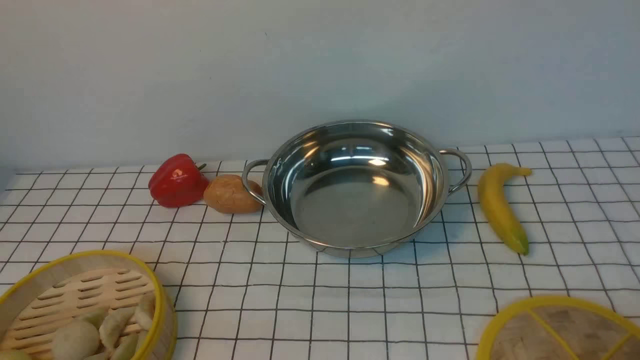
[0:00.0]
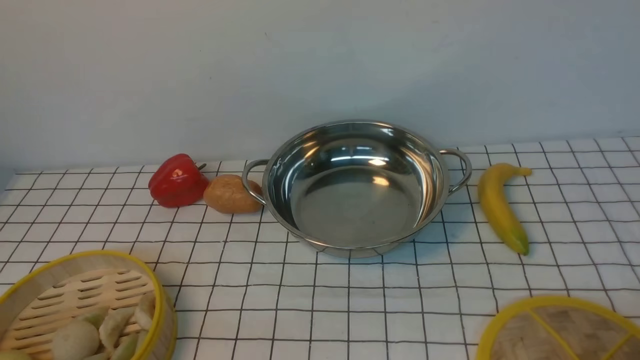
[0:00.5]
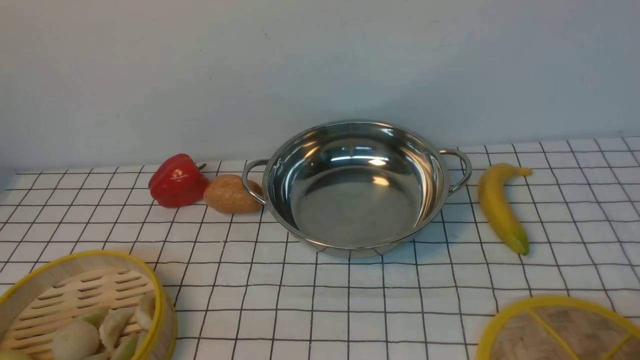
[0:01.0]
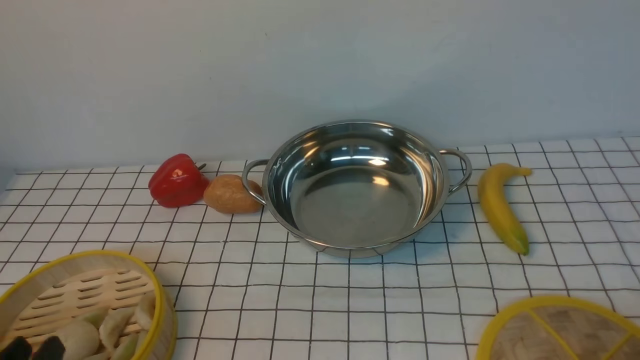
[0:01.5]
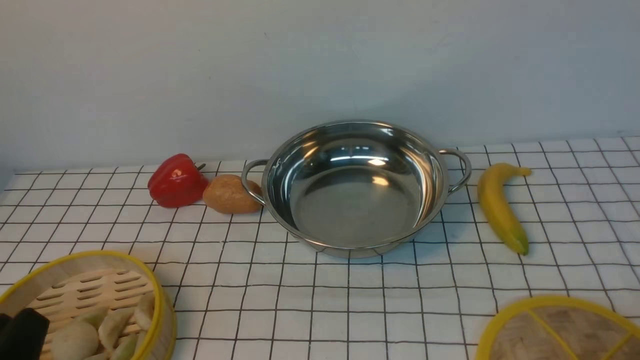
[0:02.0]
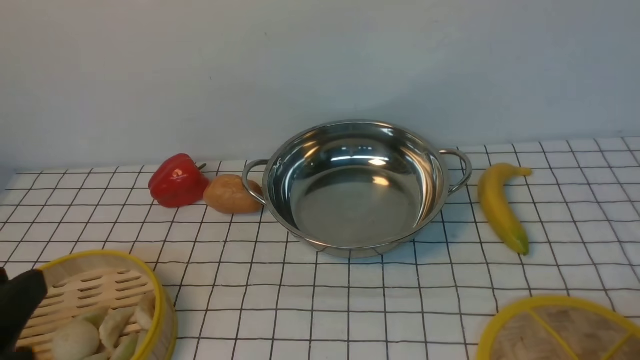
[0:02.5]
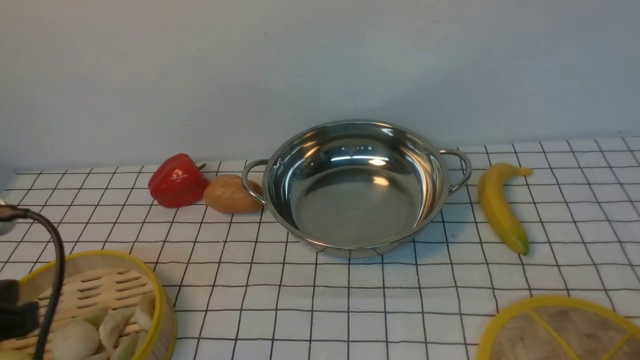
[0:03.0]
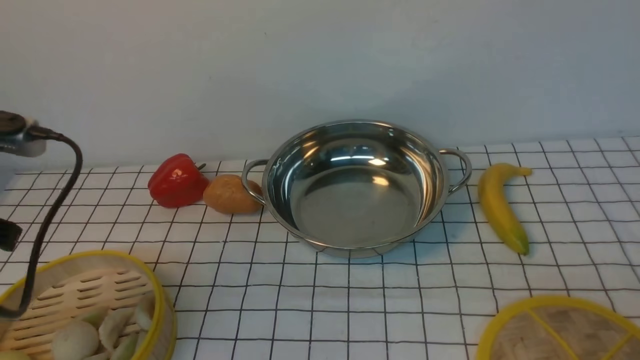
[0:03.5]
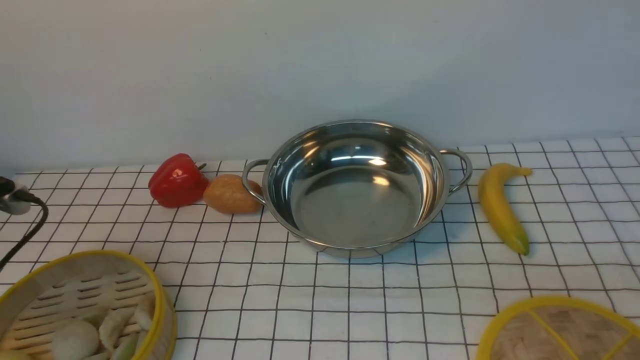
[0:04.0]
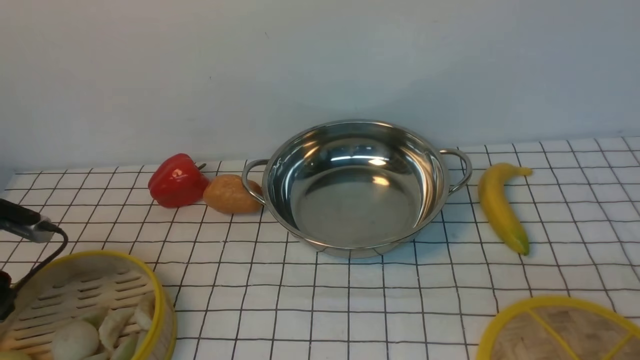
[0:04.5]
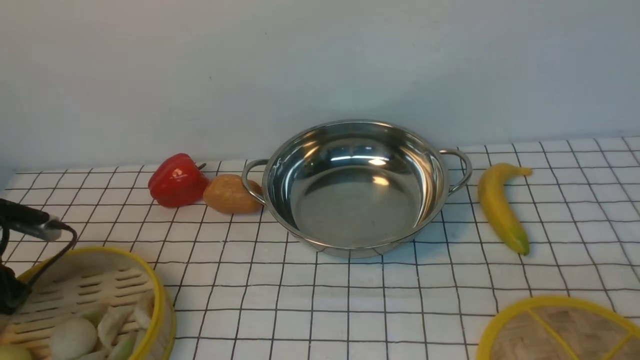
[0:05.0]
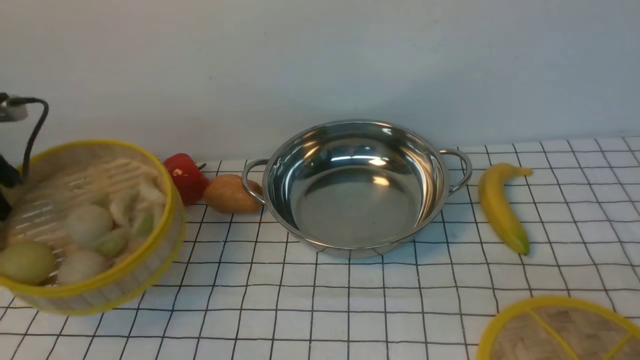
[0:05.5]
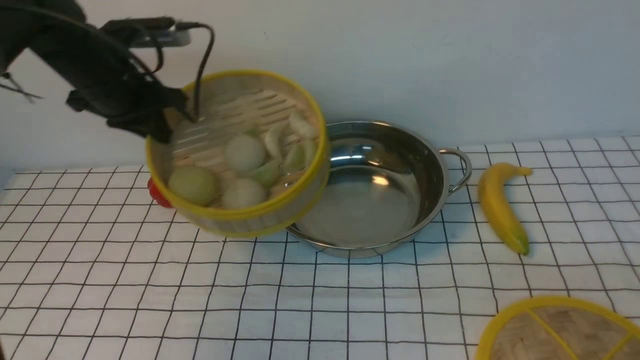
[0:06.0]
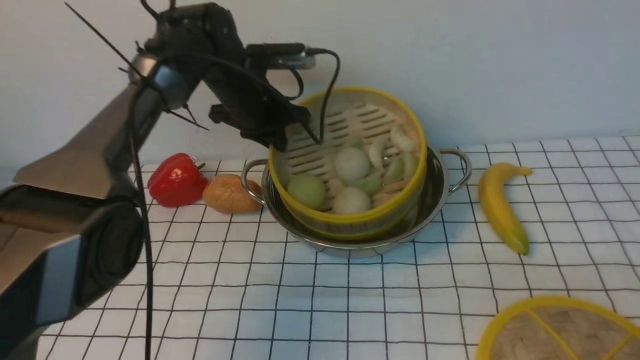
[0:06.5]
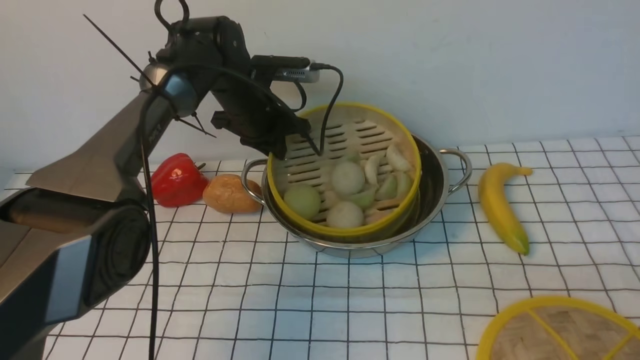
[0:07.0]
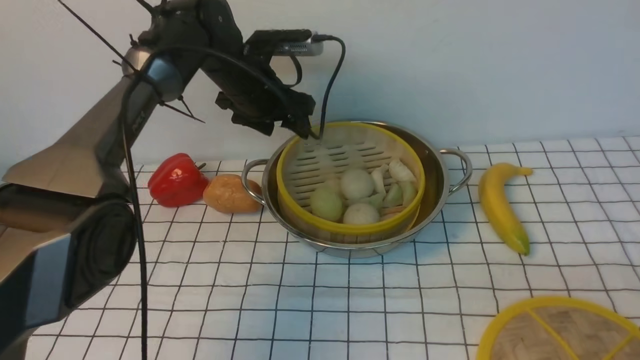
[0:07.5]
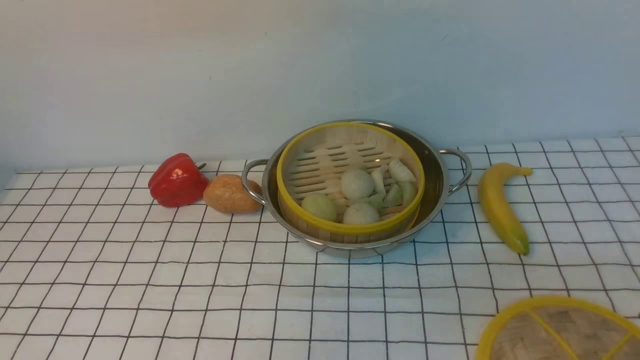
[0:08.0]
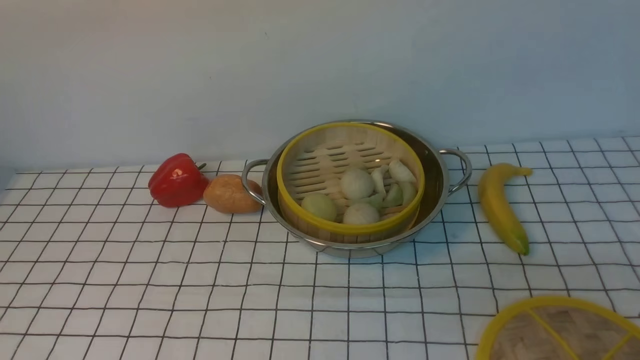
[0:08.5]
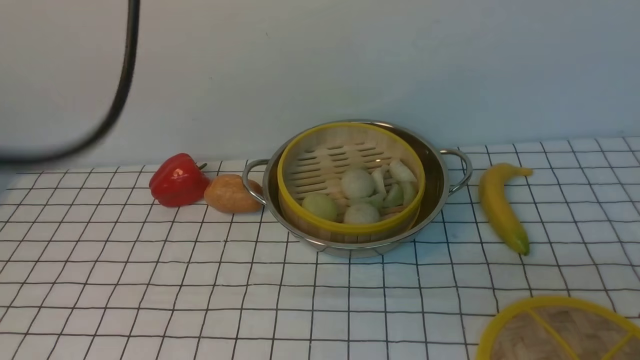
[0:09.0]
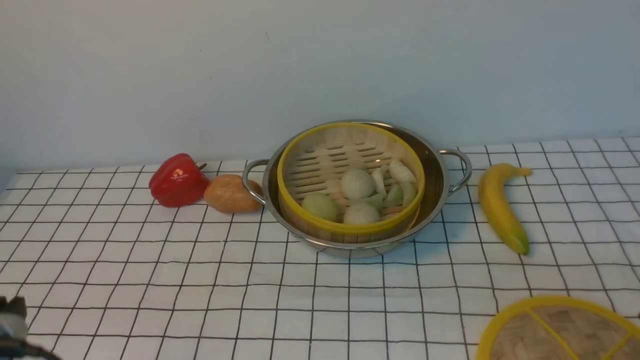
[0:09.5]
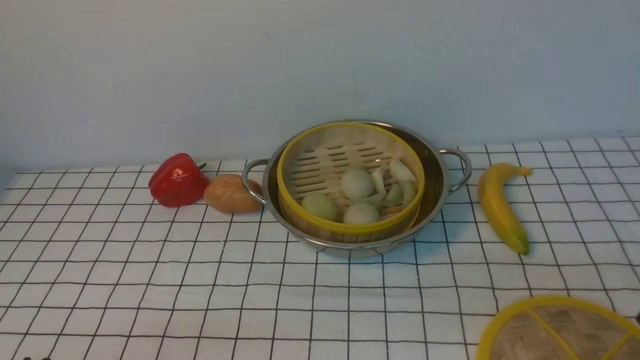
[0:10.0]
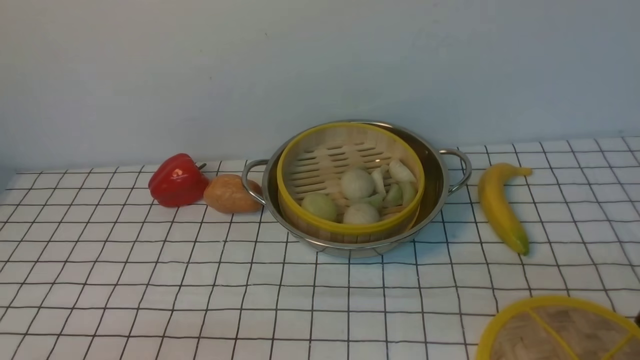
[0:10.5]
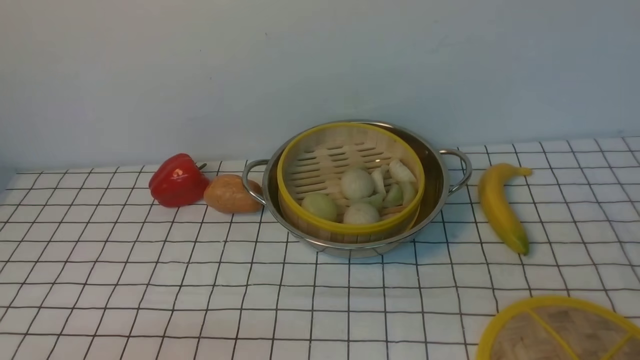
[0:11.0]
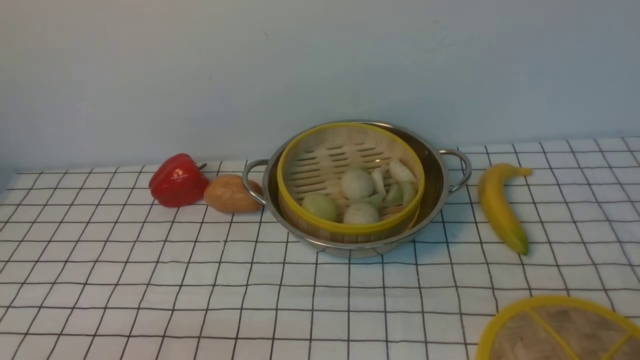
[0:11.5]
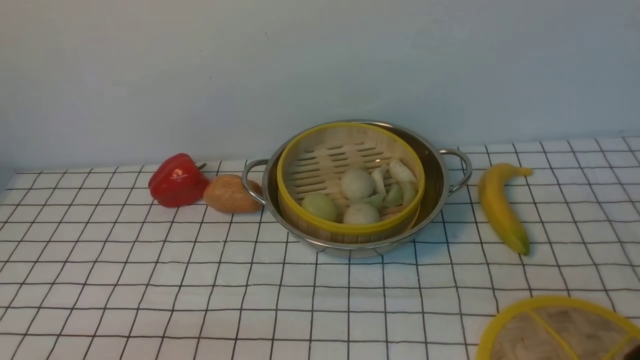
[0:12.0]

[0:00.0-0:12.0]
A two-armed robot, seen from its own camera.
Task of the whole recording: place the steamer in the pot on the white tablecloth, and put the lid on the steamer.
Step, 0:00.0 to 0:05.0: use the left arm to lift the steamer closest to it.
Step, 0:05.5 to 0:07.0: use the left arm to put the steamer into the iron steamer pot in the middle.
0:00.0 to 0:02.0: The left gripper heads upward, covering some 5 cm.
0:02.0 to 0:04.0: The left gripper heads forward and to the left, covering about 25 cm.
0:04.0 to 0:06.0: The left gripper is displaced forward and to the right by some 25 cm, and closes.
0:06.0 to 0:08.0: The left gripper heads upward and to the right, covering some 20 cm, and opens.
0:08.0 to 0:10.0: The left gripper is displaced backward and downward by approximately 40 cm, and closes.

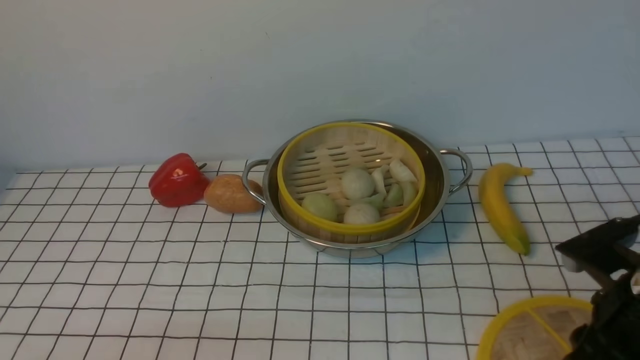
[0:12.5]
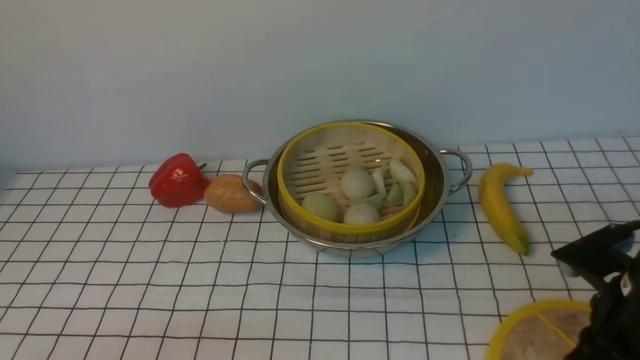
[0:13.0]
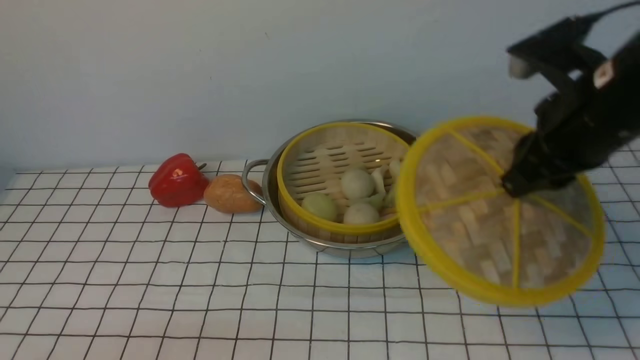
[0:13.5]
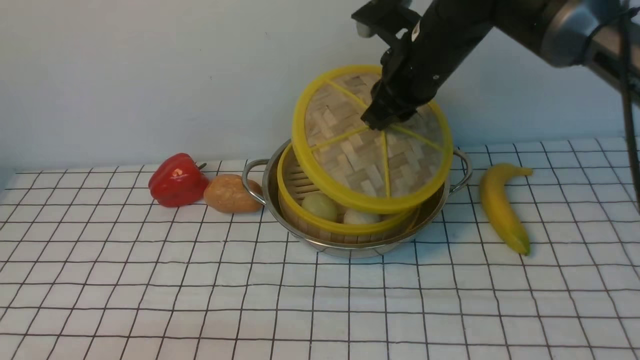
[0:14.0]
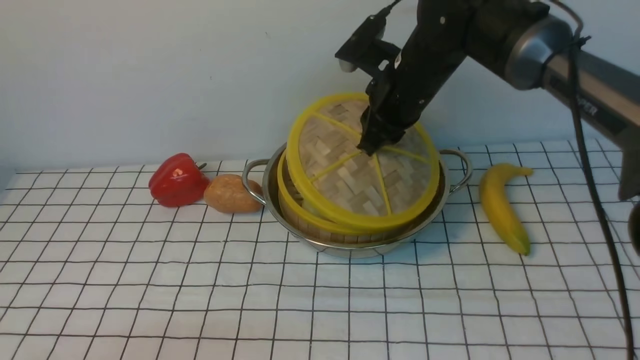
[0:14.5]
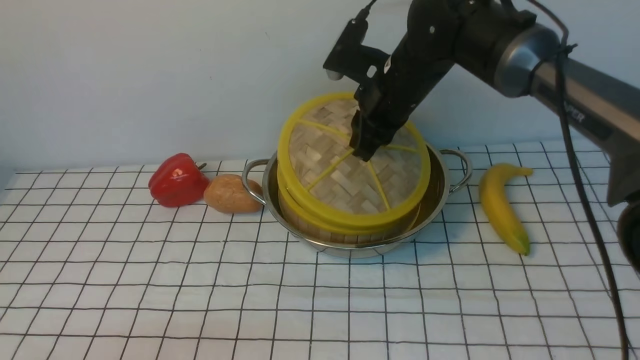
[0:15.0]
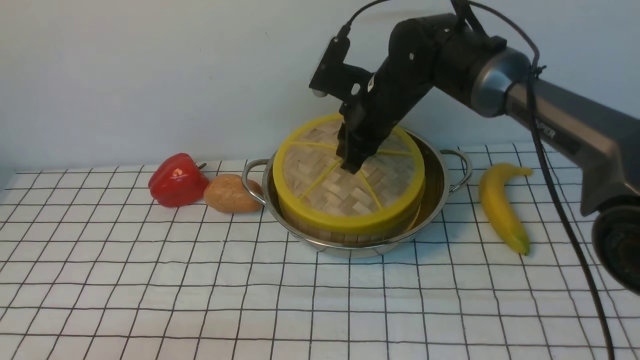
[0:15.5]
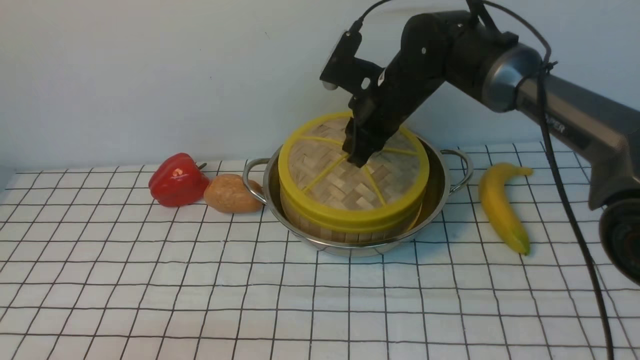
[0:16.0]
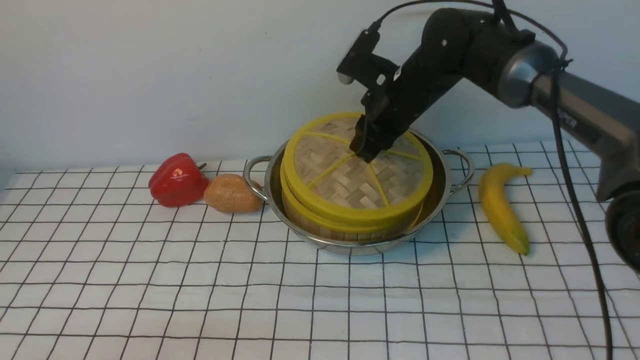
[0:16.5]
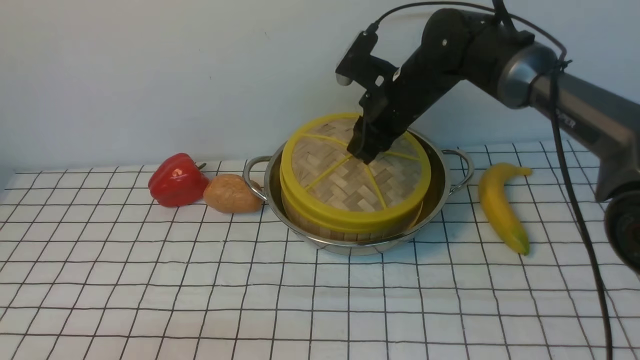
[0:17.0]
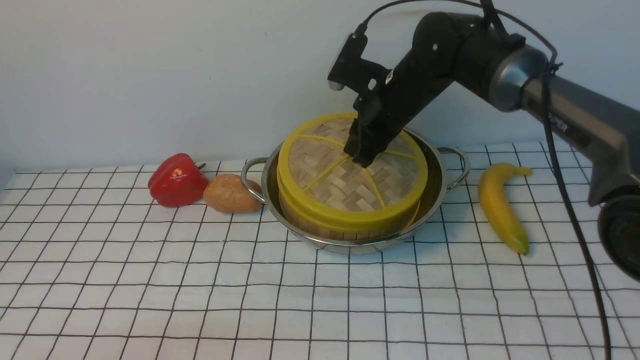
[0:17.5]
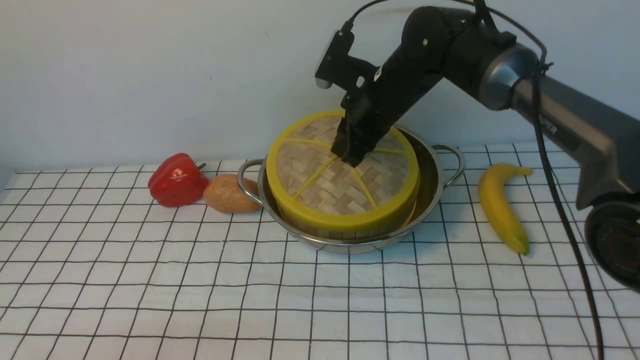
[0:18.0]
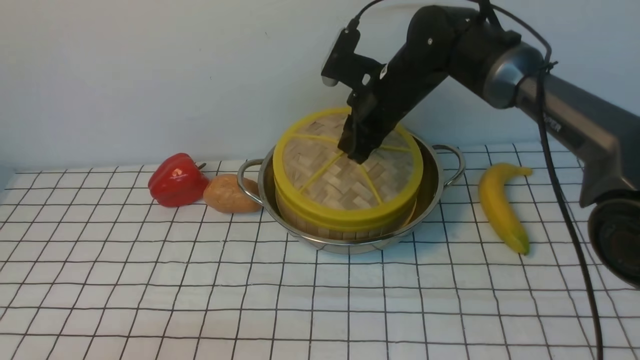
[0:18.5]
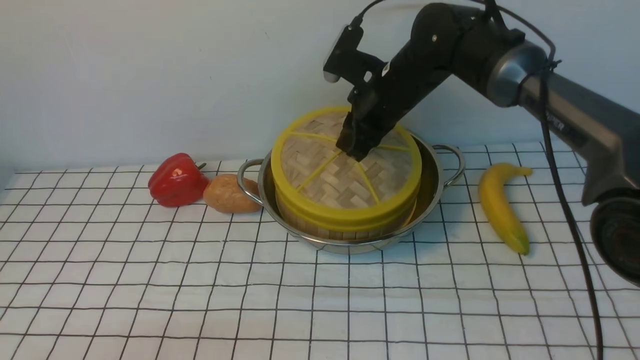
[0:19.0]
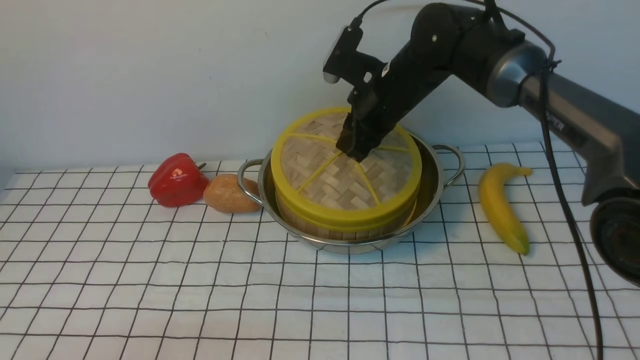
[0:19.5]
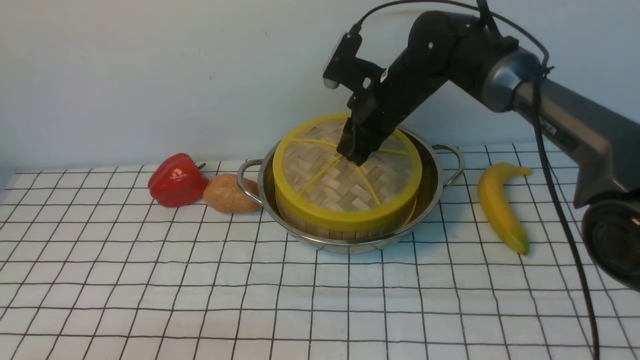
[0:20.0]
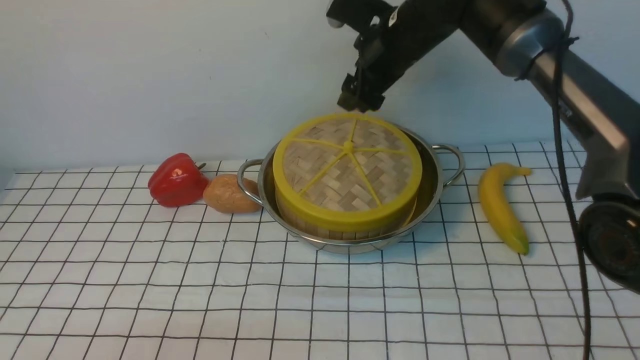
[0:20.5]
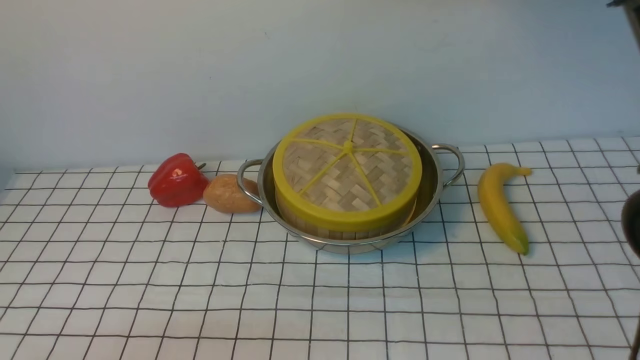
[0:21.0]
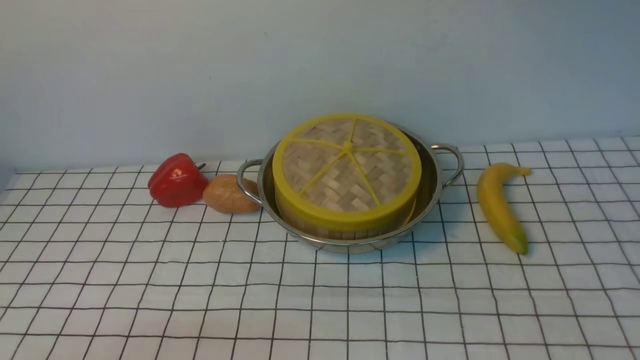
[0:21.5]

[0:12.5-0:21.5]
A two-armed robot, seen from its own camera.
Task of the whole recording: place the steamer in the pot on the white tablecloth, and put the lid on the steamer.
Step, 0:13.5 to 0:20.0: use the right arm to place the steamer lid on the steamer.
0:12.5 to 0:14.5: The right gripper goes about 30 cm forward and to the left, and closes up.
0:14.5 to 0:19.5: The grippers move only a little.
0:19.5 to 0:21.5: The right gripper travels upward by some 25 cm, and closes.
